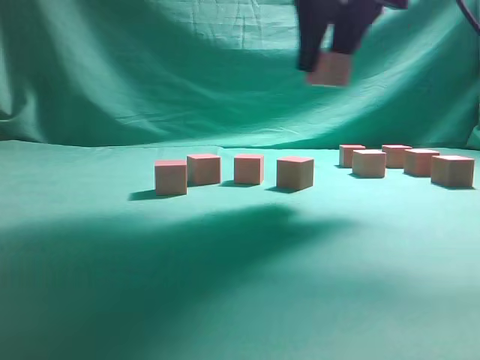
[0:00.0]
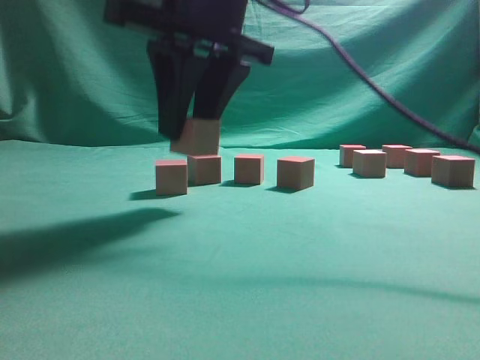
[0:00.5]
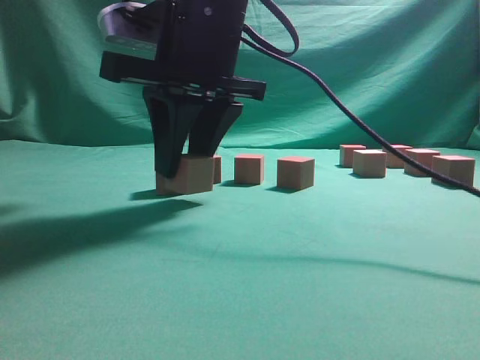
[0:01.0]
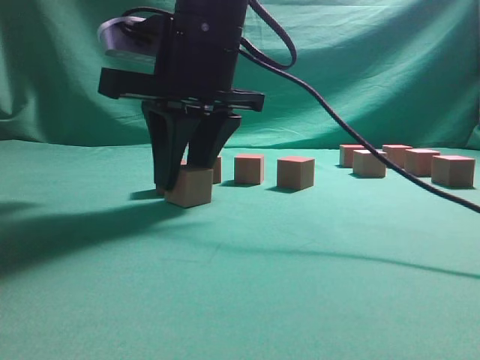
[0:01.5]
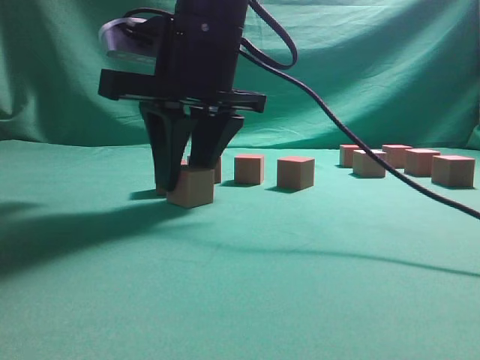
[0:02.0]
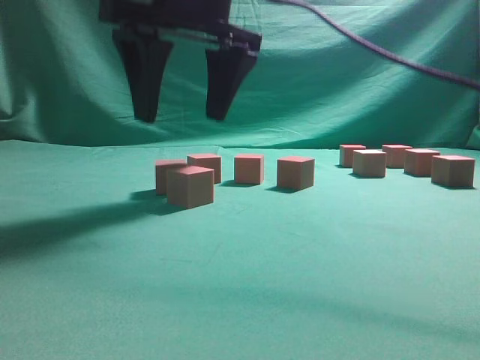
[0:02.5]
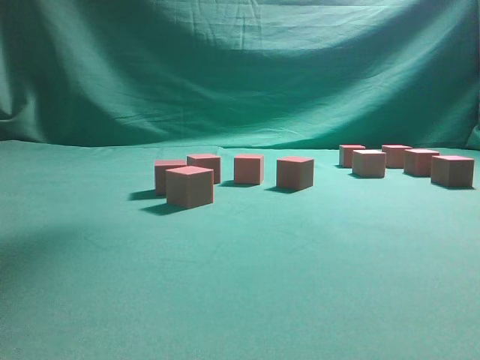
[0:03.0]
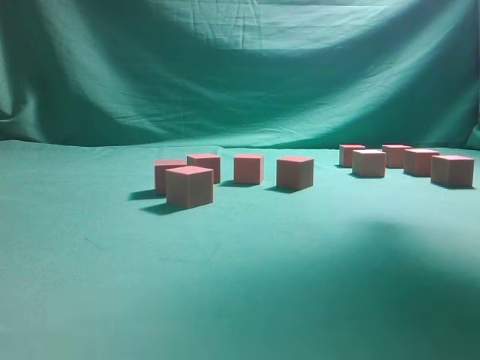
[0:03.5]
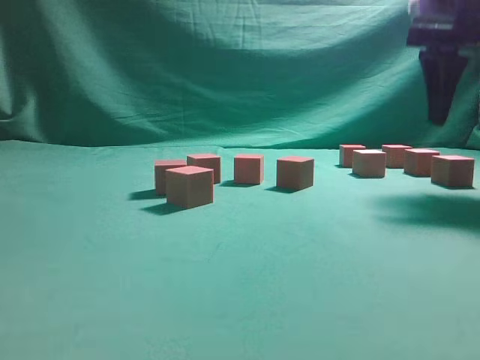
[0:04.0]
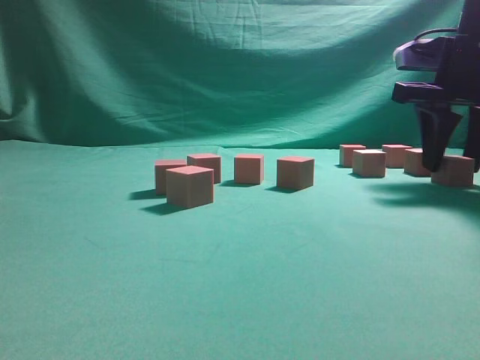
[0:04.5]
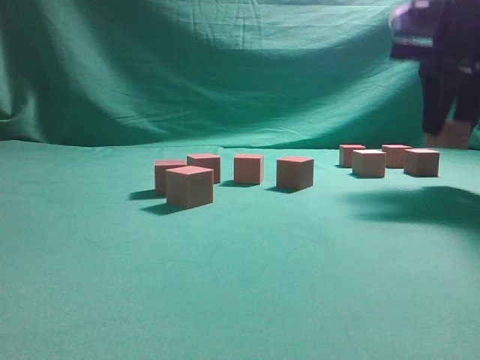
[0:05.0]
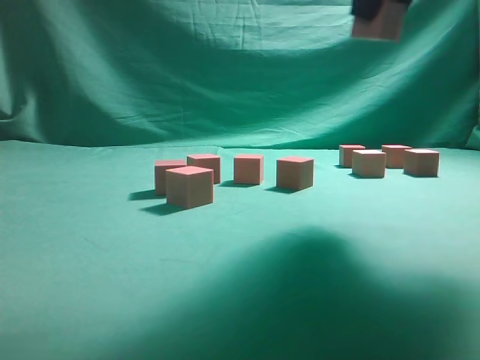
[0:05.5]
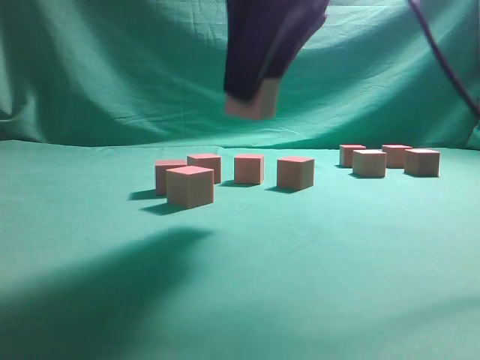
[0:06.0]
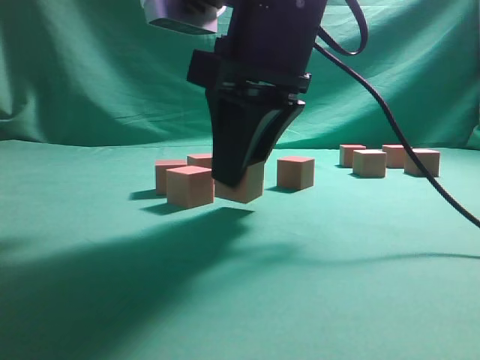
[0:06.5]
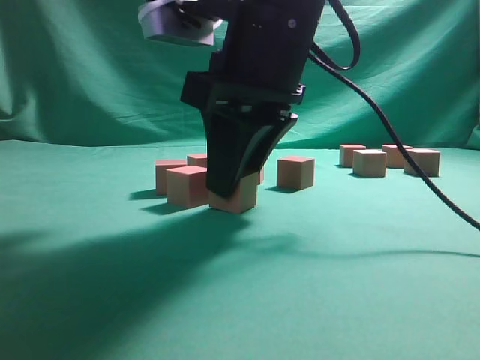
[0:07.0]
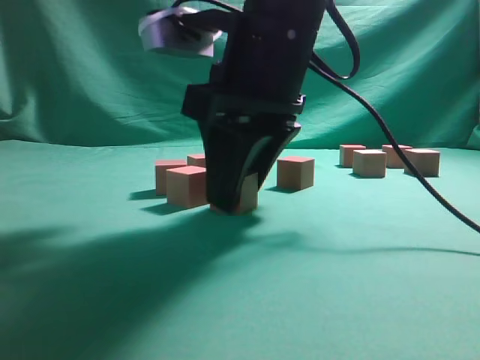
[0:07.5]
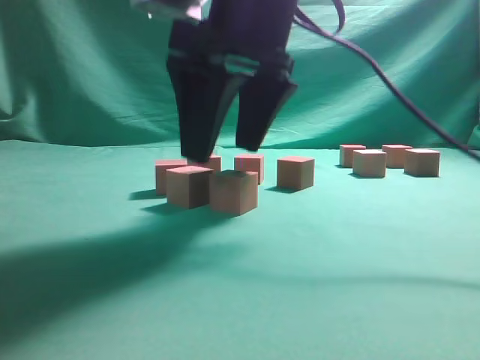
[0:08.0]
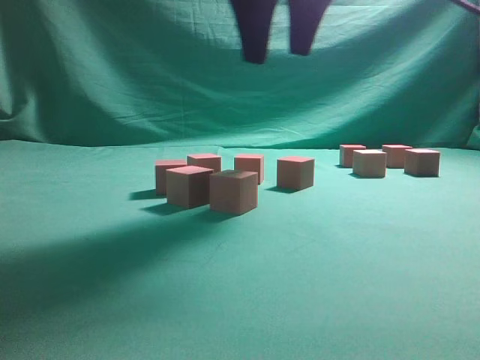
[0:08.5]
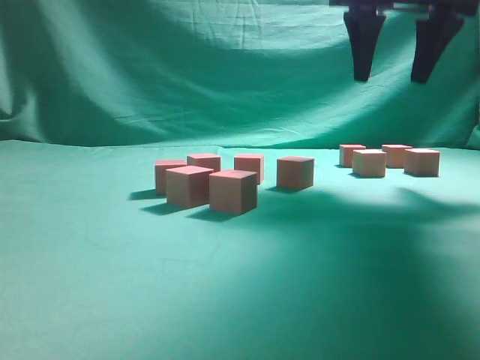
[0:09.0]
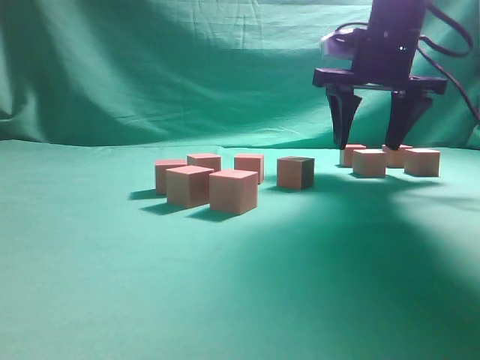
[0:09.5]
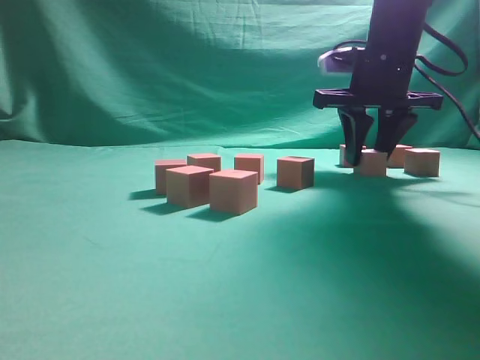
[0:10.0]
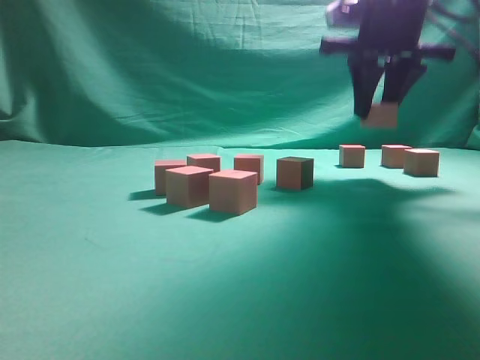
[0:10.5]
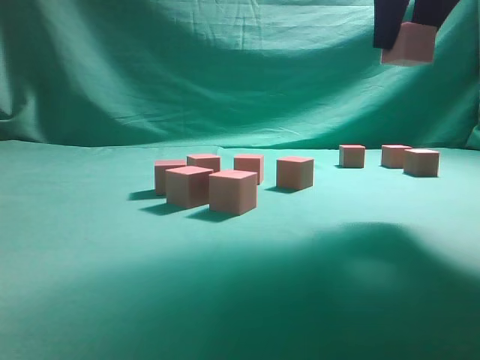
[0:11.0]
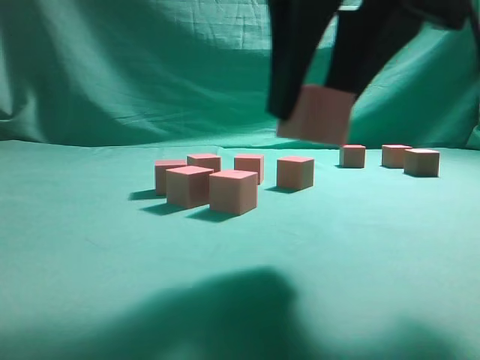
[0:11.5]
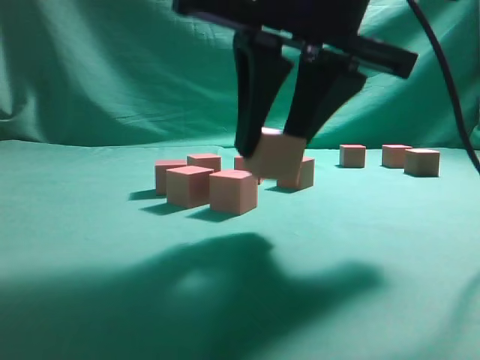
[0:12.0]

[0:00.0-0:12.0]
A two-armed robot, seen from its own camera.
Task of the whole recording: pick up the multiple cubes in two columns one by one and place them in another position on the table.
Step, 0:00.0 to 0:02.5: Place the block at the correct position to assemble the letter S.
Step, 0:03.0 to 0:05.0: Pick up the block on the table.
Step, 0:05.5 to 0:08.0: Place the block at the correct position to assemble the letter S.
Step, 0:09.0 to 0:10.0: Pick up the block on the table.
0:00.0 to 0:02.0: The right gripper travels to the left and downward by about 15 cm.
0:02.0 to 0:04.0: The right gripper moves to the right, about 25 cm, and opens up.
0:04.0 to 0:06.0: The right gripper shifts approximately 20 cm to the left and backward, and closes its fingers.
0:06.0 to 0:08.0: The right gripper changes place by approximately 5 cm, and opens.
0:08.0 to 0:10.0: The right gripper is displaced forward and to the right by roughly 20 cm.
0:10.0 to 0:12.0: The right gripper moves backward and to the left, roughly 25 cm.

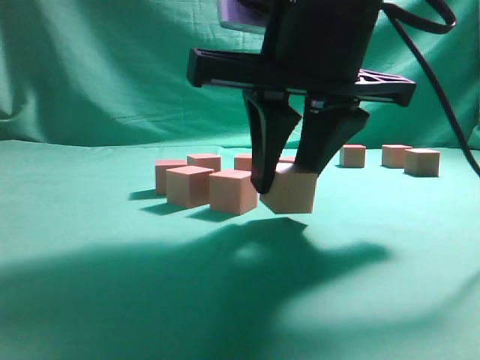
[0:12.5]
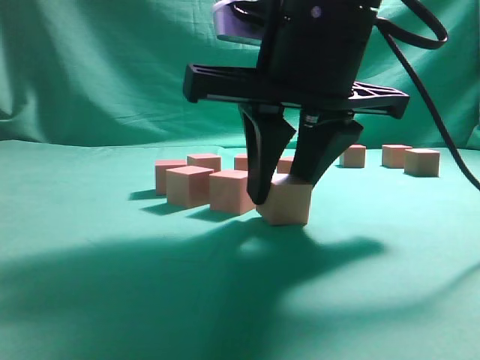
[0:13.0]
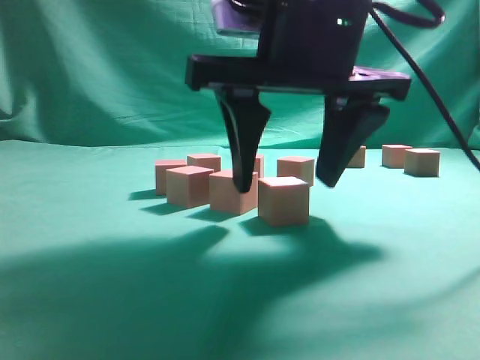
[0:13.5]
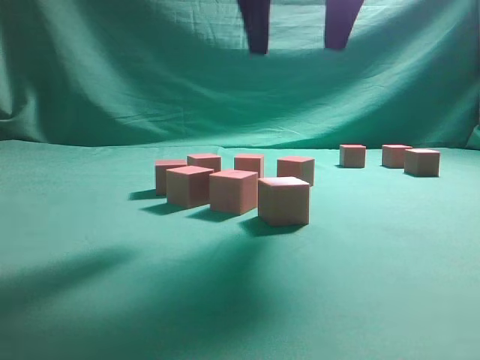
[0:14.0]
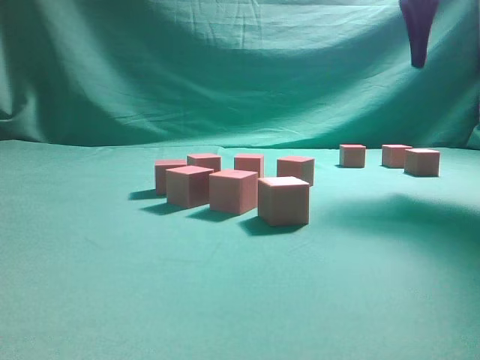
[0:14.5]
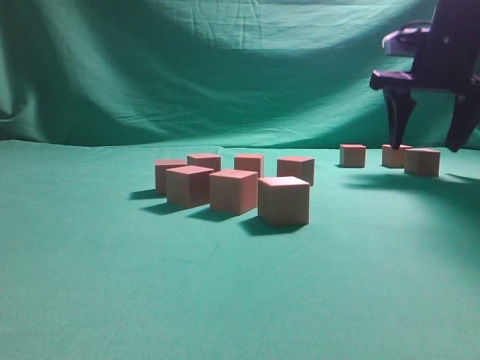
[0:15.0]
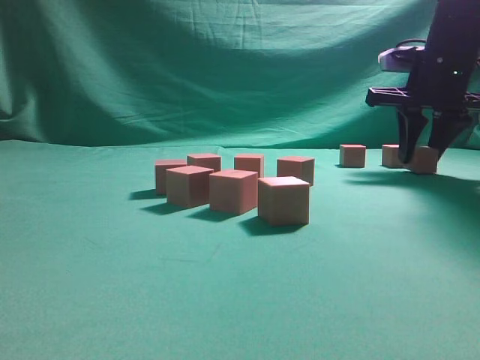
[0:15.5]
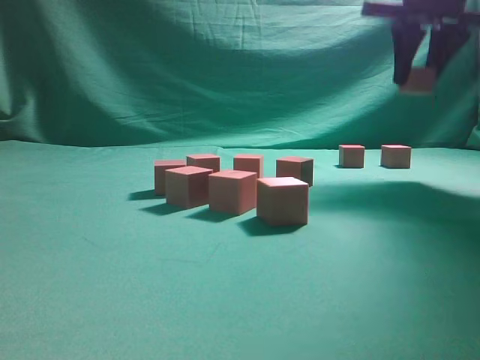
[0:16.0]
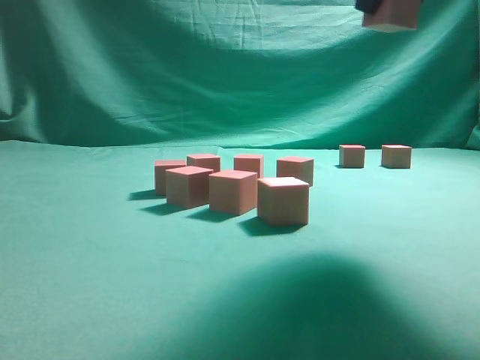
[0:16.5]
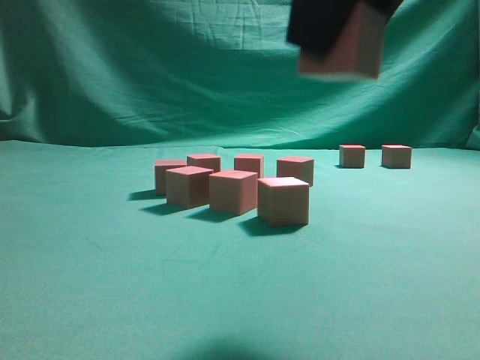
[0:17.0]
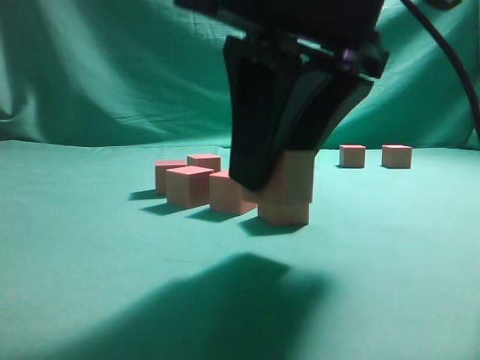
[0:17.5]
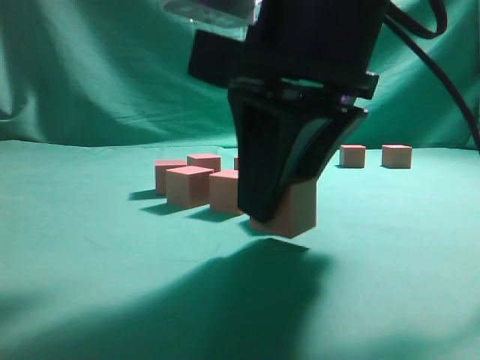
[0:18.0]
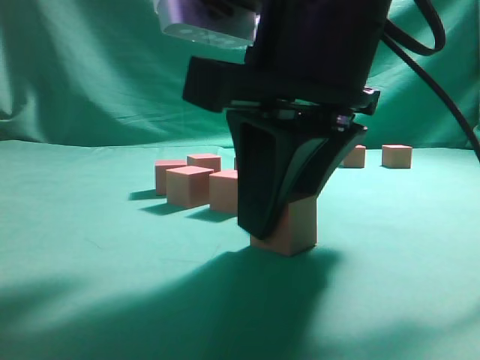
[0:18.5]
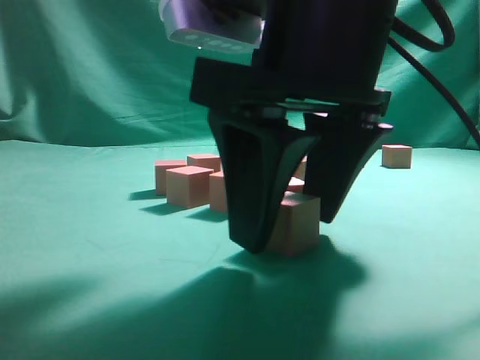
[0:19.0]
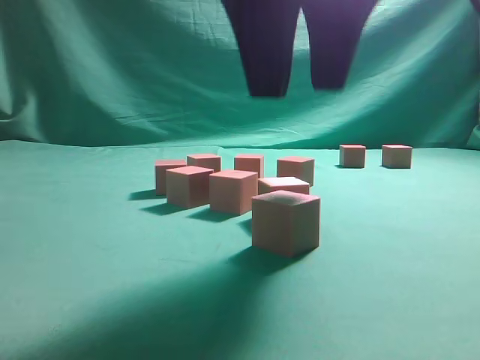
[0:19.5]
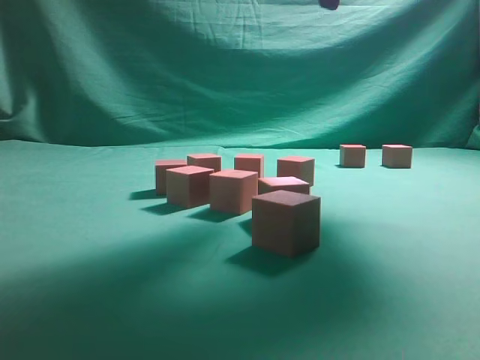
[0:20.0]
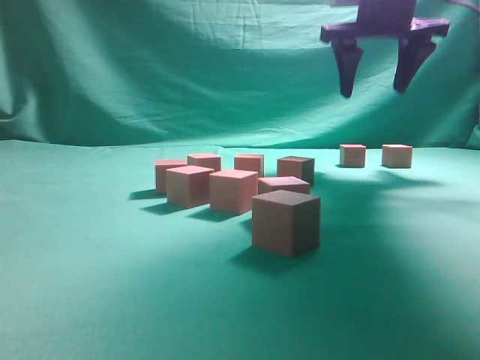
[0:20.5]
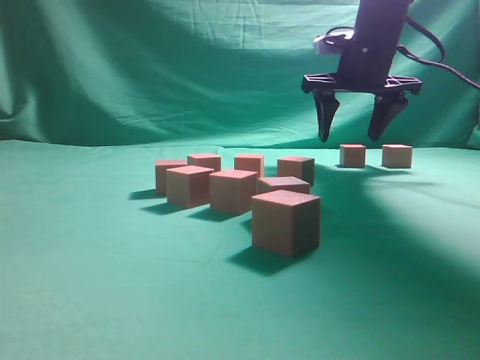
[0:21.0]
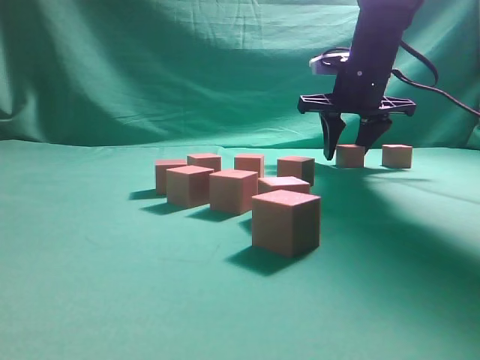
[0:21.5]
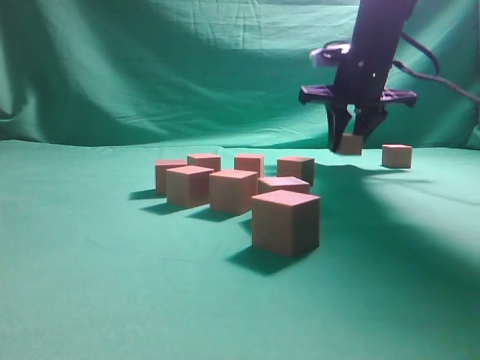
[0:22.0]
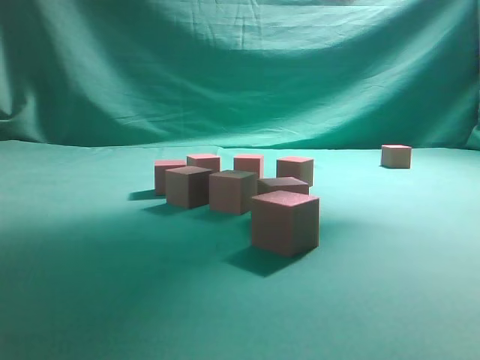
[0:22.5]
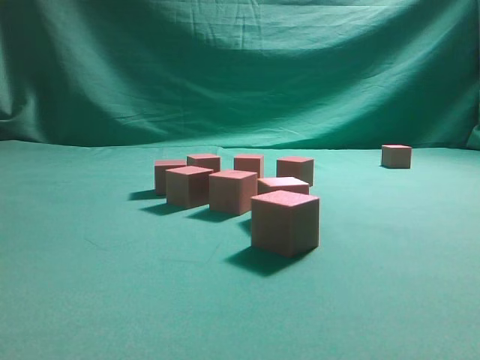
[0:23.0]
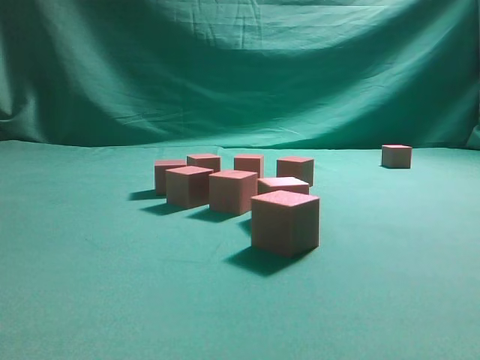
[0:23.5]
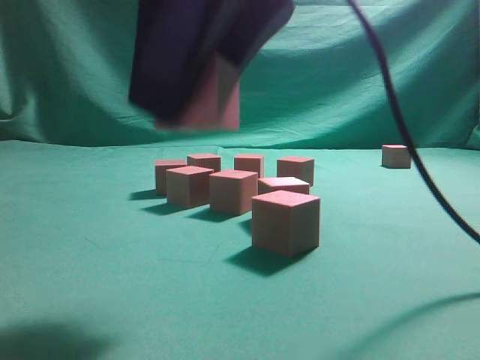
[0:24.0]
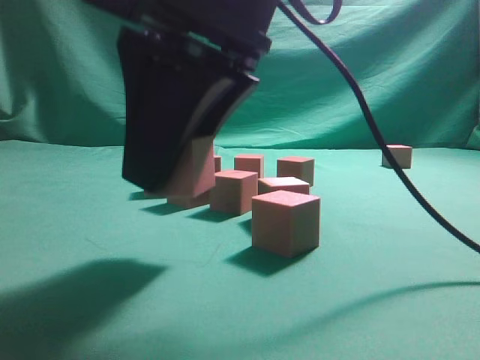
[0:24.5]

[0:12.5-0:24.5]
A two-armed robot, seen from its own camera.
Task of the whole recording: pick up the multiple cubes in two columns one by one and place them in another position on the table.
Step, 0:14.0 to 0:15.5: Pick up the block on the table.
Step, 0:16.0 to 0:19.5: Place the block at the correct position to assemble the letter S.
Step, 0:20.0 to 0:22.0: Pick up the block on the table.
0:12.5 to 0:14.5: The right gripper heads to the right, forward and upward, covering some 25 cm, and opens up.
0:14.5 to 0:16.5: The right gripper shifts about 15 cm backward and to the left, and closes up.
0:16.5 to 0:18.5: The right gripper goes about 20 cm downward, to the left and backward.
0:18.5 to 0:20.5: The right gripper heads forward and to the right, covering some 30 cm, and opens up.
0:20.5 to 0:22.5: The right gripper heads upward, covering approximately 10 cm, and closes up.
0:22.5 to 0:24.5: The right gripper heads backward, downward and to the left, covering some 30 cm.

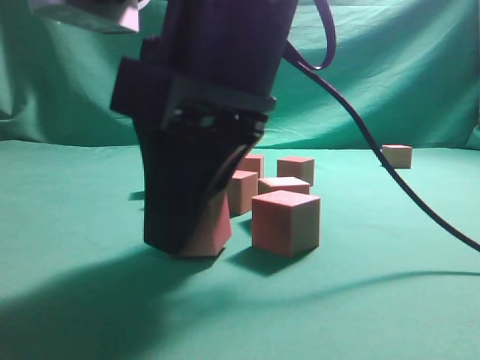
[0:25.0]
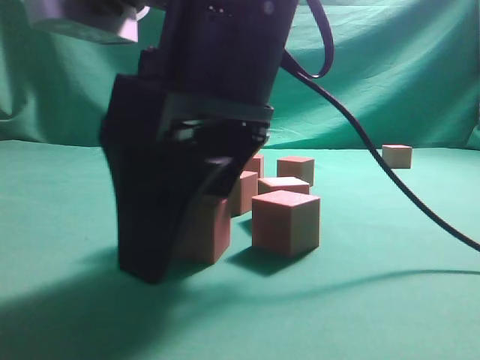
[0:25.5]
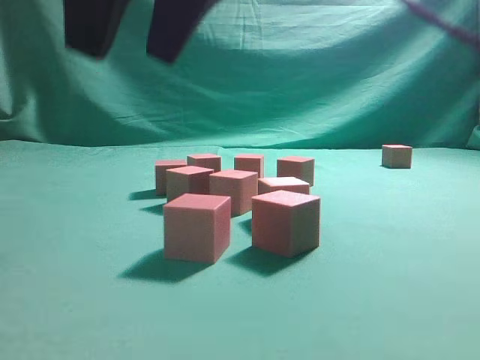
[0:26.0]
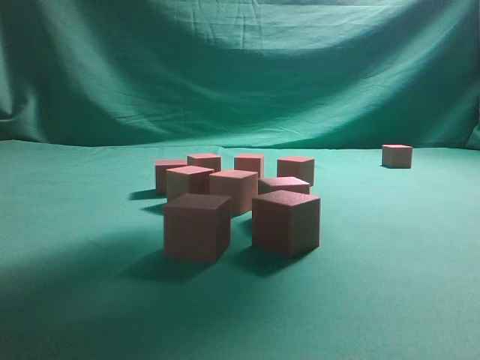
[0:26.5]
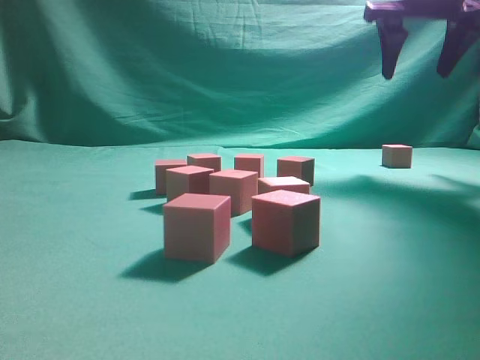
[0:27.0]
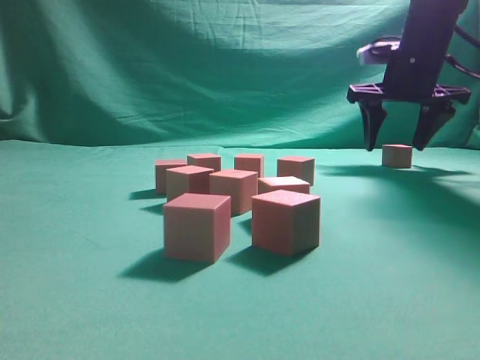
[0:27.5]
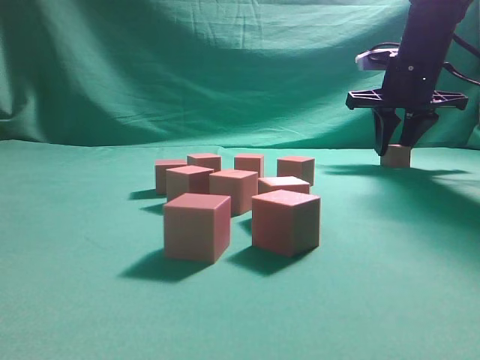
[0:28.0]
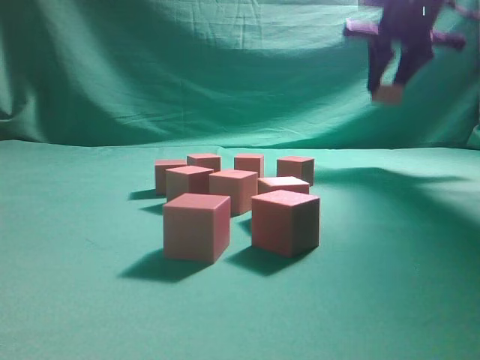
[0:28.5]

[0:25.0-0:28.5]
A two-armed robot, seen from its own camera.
Task of the whole recording: pick up the multiple cubes in two columns one by one and place them in another position on the table.
Step, 0:26.5 to 0:28.0: Pick up the block on the table.
0:25.0 to 0:27.0: The right gripper shifts roughly 35 cm forward, to the right and upward, and opens its fingers.
0:27.0 to 0:28.5: The right gripper goes some 5 cm forward, goes downward and returns, roughly 10 cm each way, and closes its fingers.
